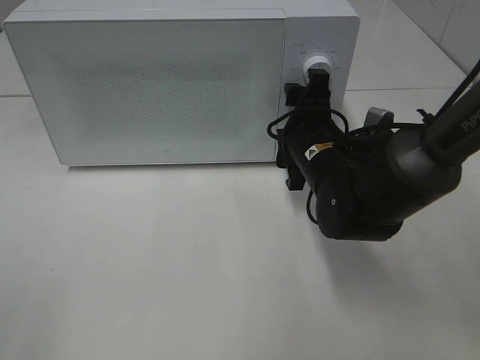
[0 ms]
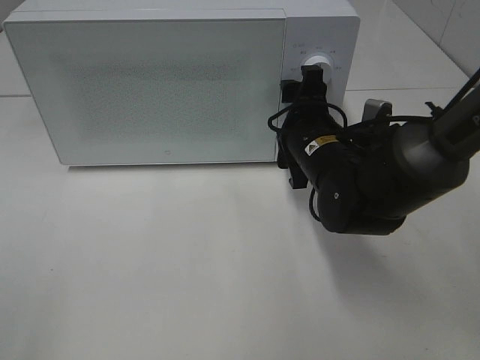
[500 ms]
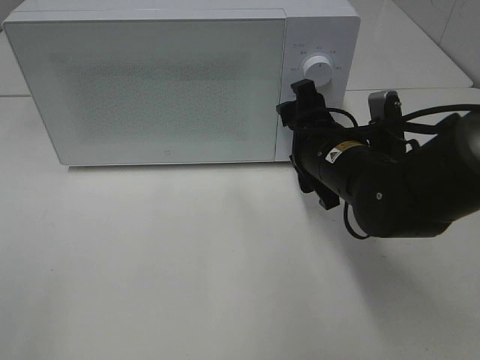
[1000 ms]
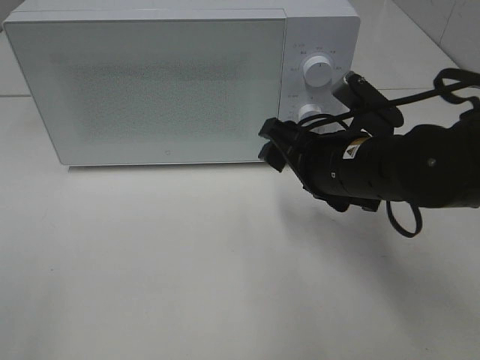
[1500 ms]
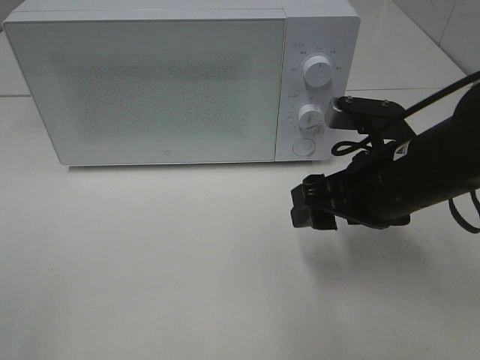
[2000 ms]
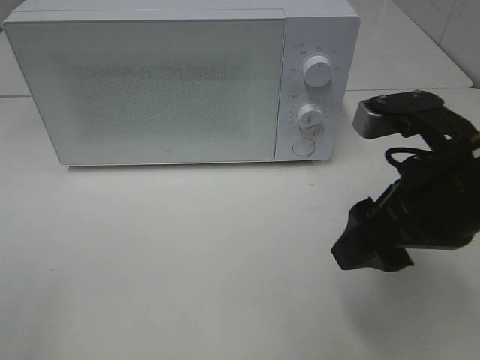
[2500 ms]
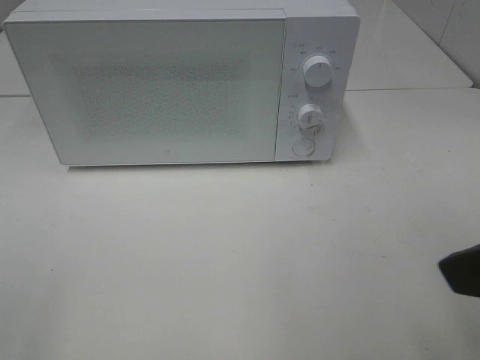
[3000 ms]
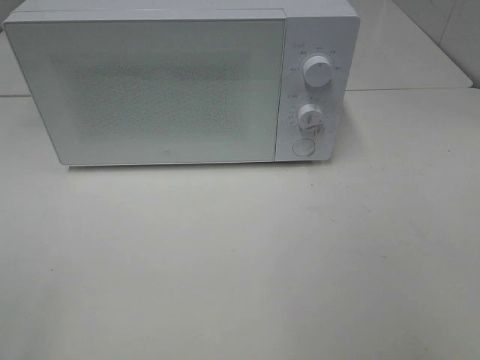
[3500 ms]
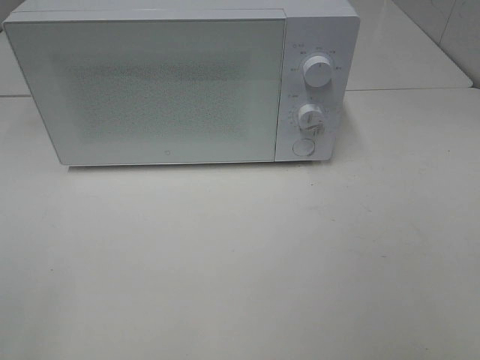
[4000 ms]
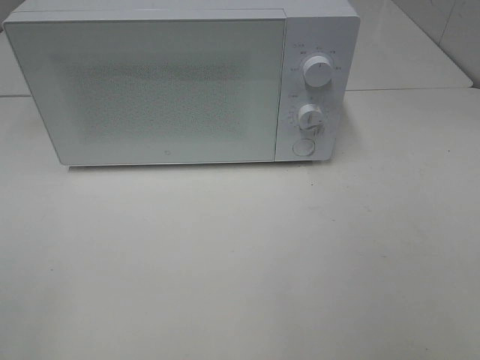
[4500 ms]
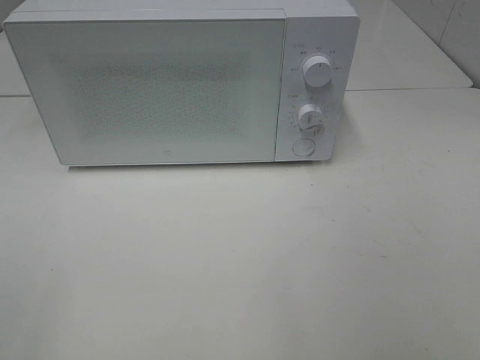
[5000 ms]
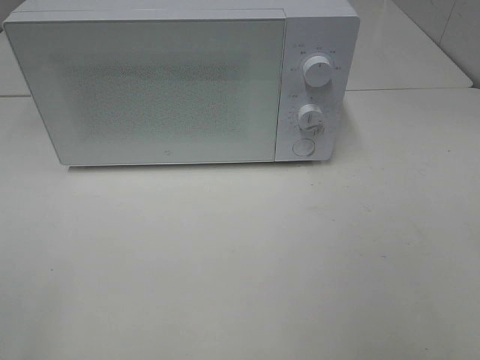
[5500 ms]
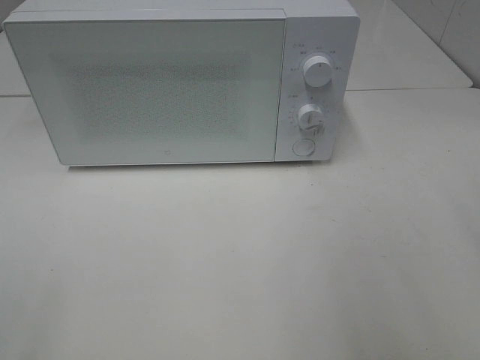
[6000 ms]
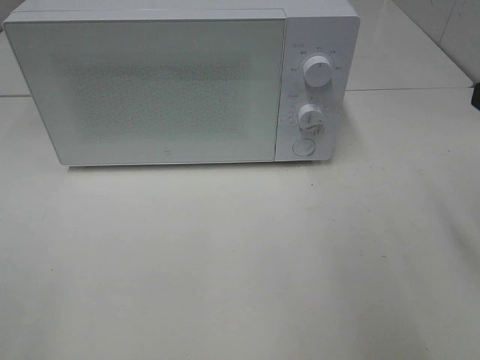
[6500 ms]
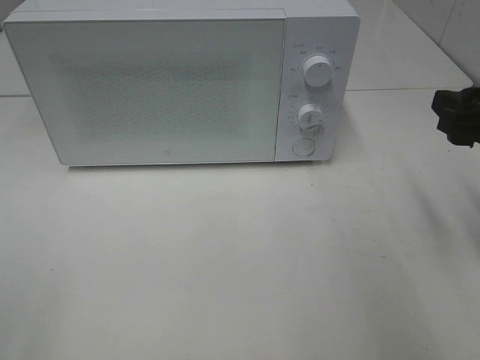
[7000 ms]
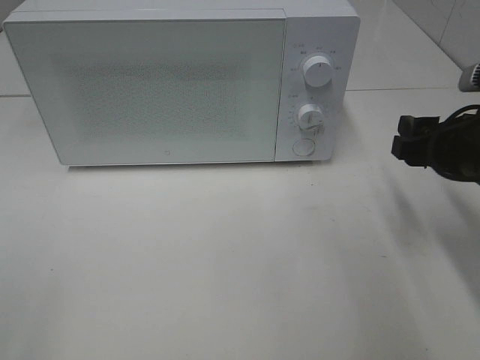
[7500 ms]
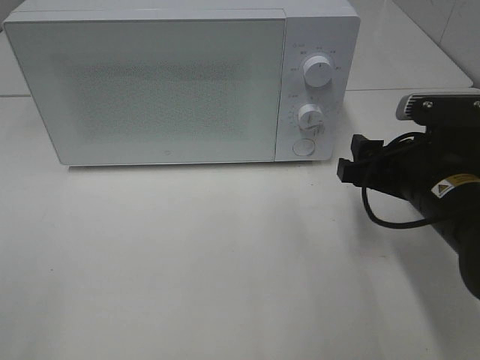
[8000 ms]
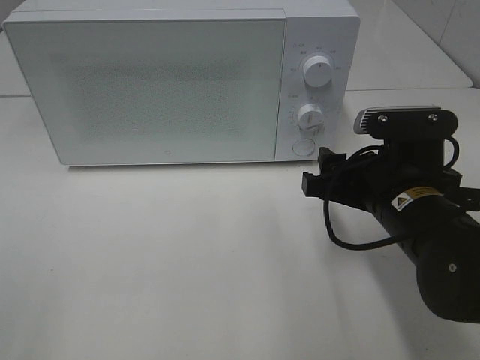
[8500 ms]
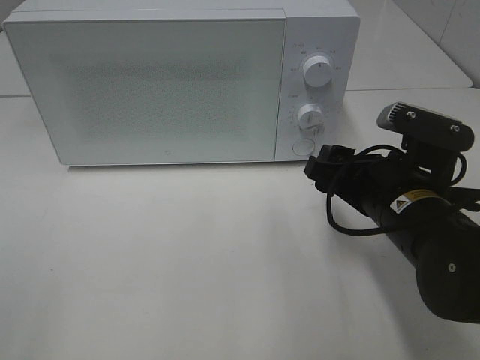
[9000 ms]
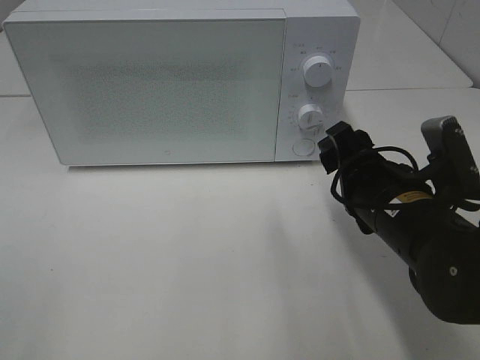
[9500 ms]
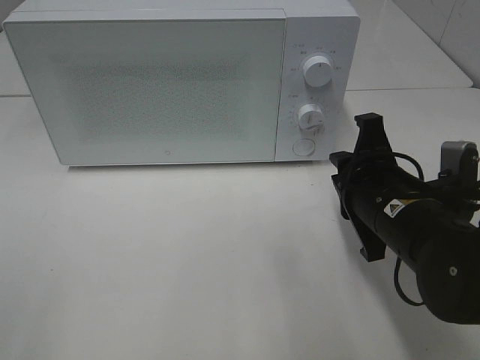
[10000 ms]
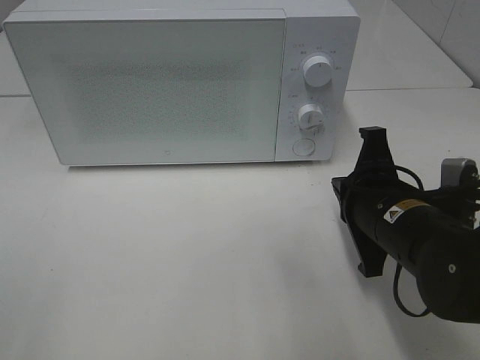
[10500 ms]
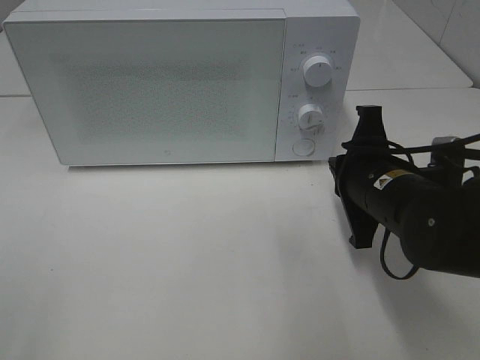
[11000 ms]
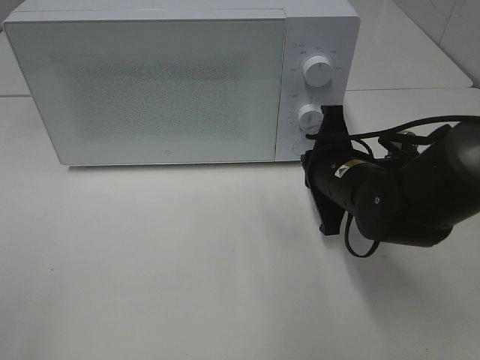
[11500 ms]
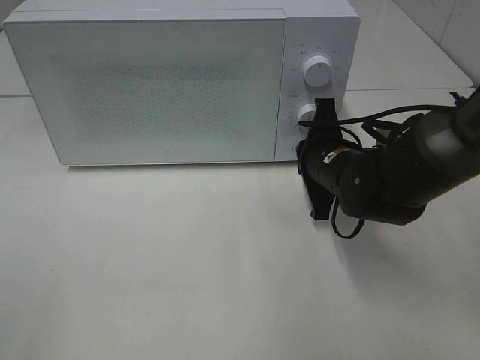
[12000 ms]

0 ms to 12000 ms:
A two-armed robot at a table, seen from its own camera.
Task of the whole recording: Heat Sandwich.
0 ms to 2000 ms: The right gripper is displaced backward, upward and to the right by about 10 cm.
2000 ms to 4000 ms: The right gripper shifts roughly 30 cm backward, to the right and upward.
6000 ms to 8000 ms: The right gripper moves downward, forward and to the left, about 20 cm.
8000 ms to 10000 ms: The right gripper closes up.
10000 ms to 12000 ms: The right gripper is displaced forward by approximately 10 cm.

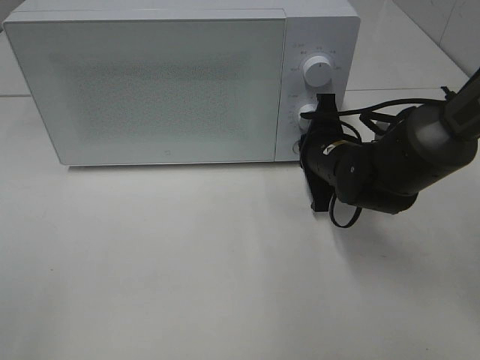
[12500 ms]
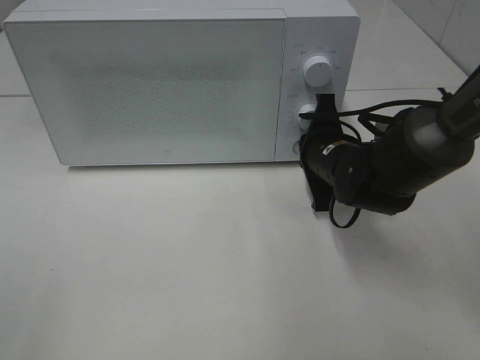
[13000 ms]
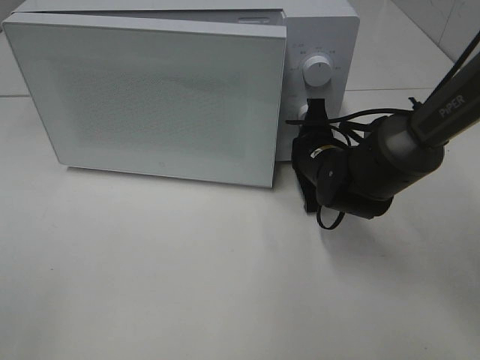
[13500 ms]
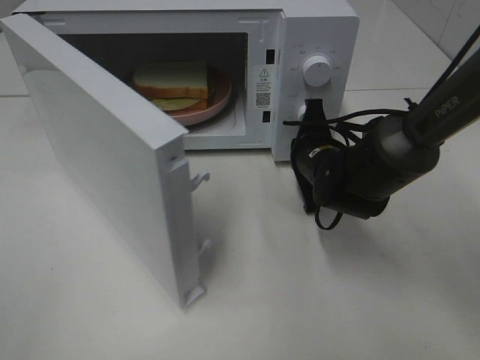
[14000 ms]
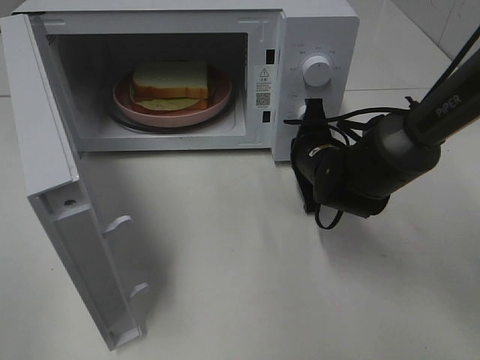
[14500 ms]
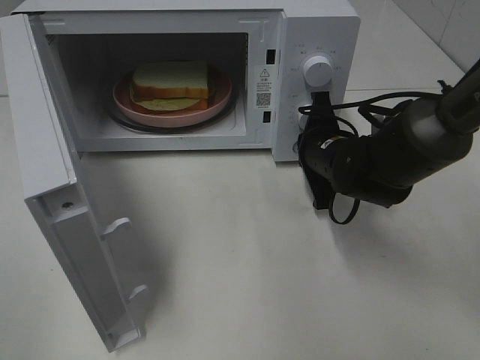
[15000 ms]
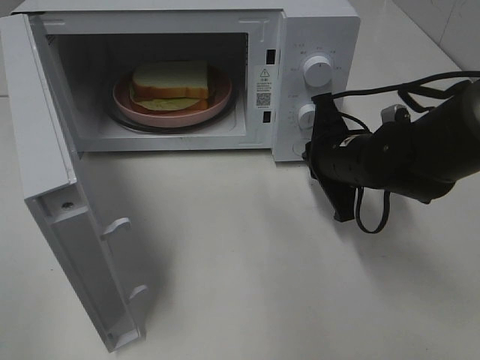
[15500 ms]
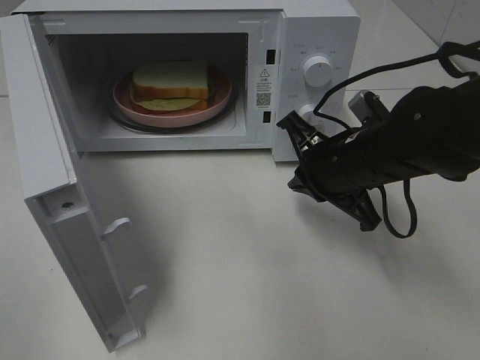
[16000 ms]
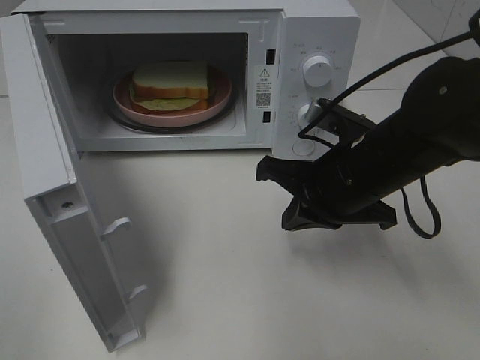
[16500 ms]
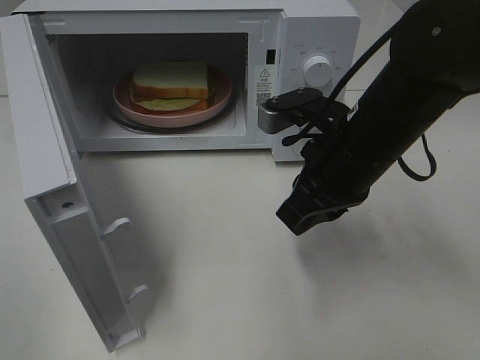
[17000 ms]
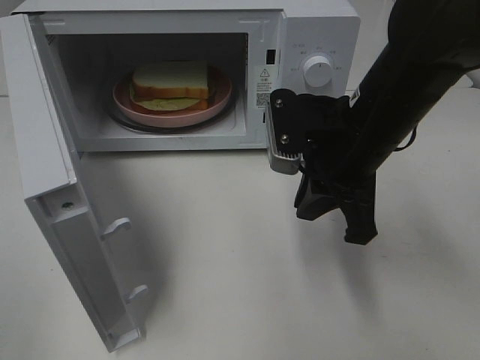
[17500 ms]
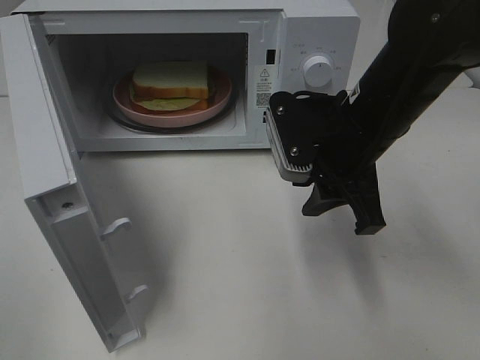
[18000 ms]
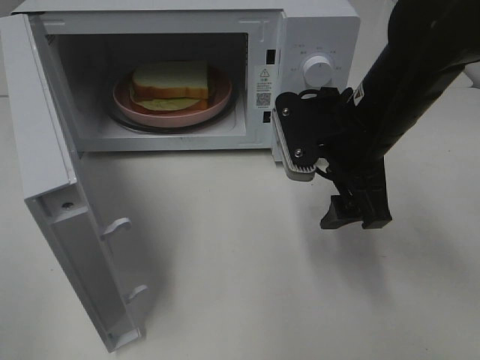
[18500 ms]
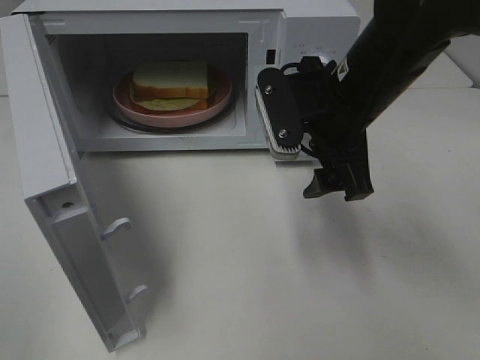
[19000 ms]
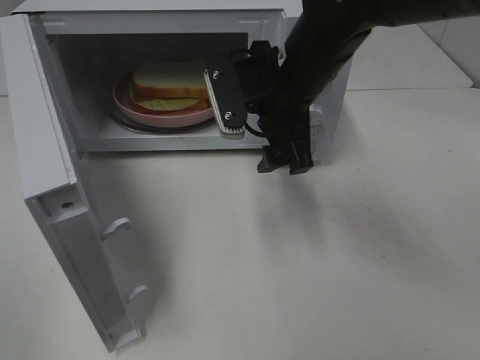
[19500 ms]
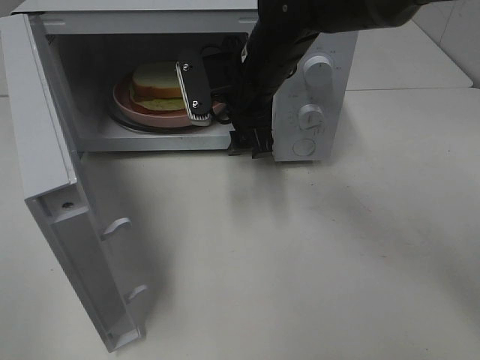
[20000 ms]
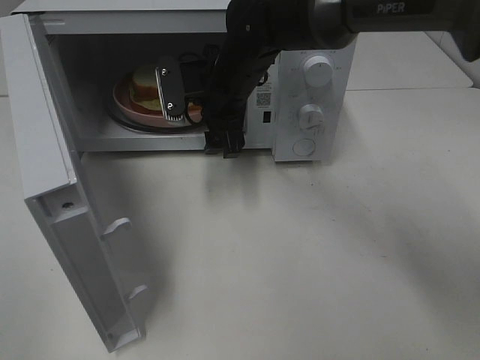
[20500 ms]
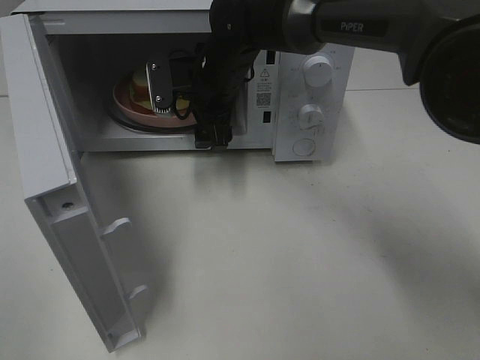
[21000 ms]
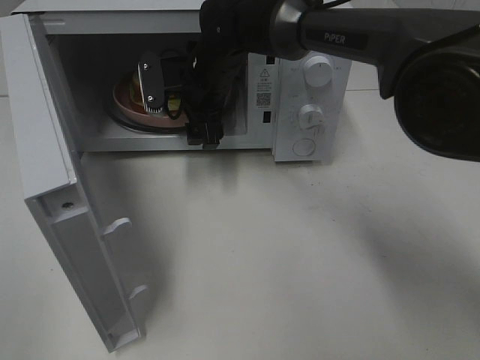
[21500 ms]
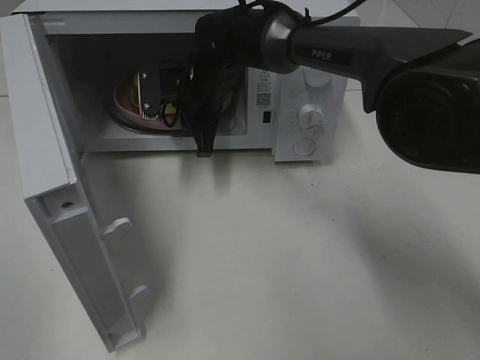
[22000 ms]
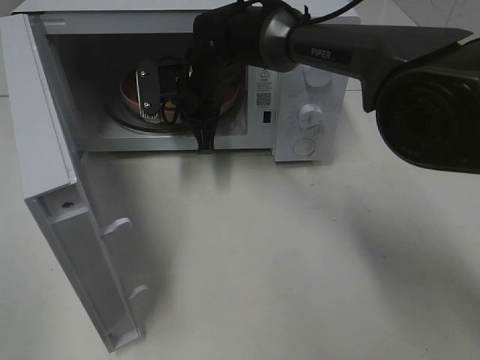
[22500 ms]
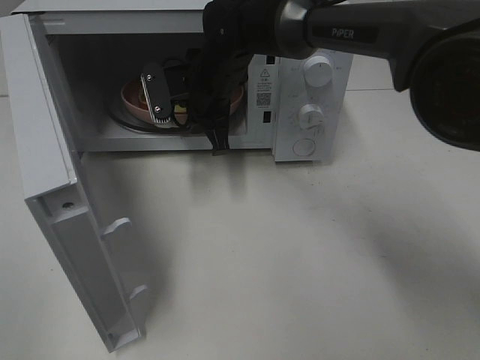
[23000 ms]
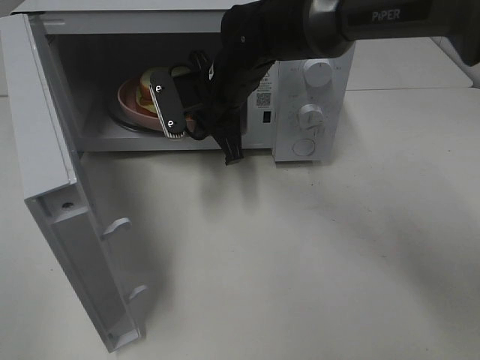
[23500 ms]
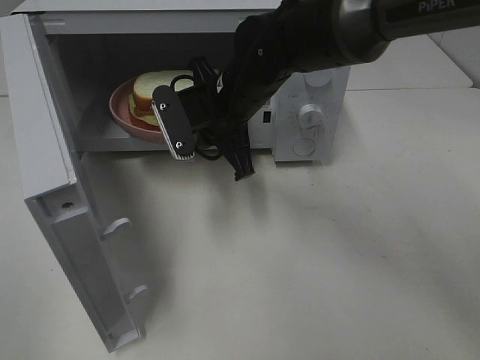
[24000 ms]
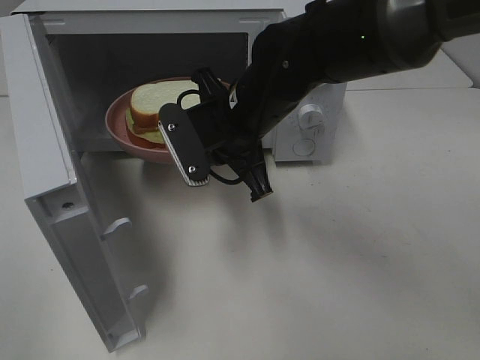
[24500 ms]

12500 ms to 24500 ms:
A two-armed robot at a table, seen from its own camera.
Task of the whole recording: Heat Sandwich.
Step, 12500 ms to 15500 ms: Right hand: press the switch.
Step, 16000 ms to 22000 ms: Right hand: grab the plate with the sandwich.
14500 ms to 16500 ms: The right gripper heads backward and upward, covering some 15 cm.
16500 ms to 18500 ms: The right gripper opens up.
18500 ms to 20500 ms: The right gripper moves to the left and forward, some 20 cm.
20500 ms to 22500 ms: The right gripper ends up roughly 5 cm from where it was, and closes its fingers.
22500 ms to 24500 ms: The right gripper goes approximately 15 cm backward.

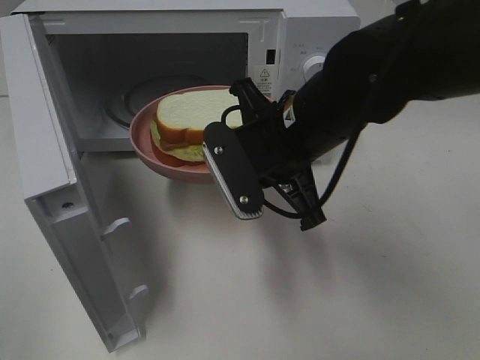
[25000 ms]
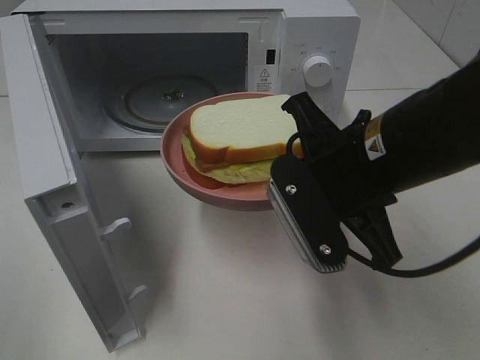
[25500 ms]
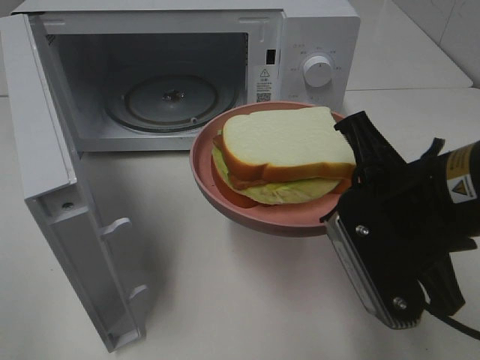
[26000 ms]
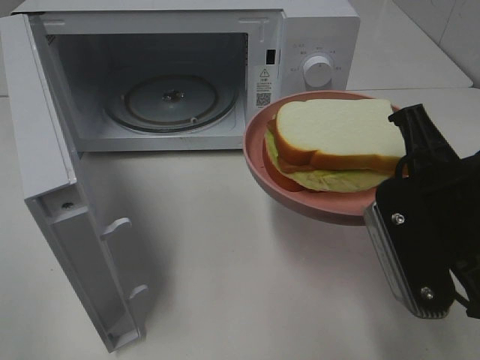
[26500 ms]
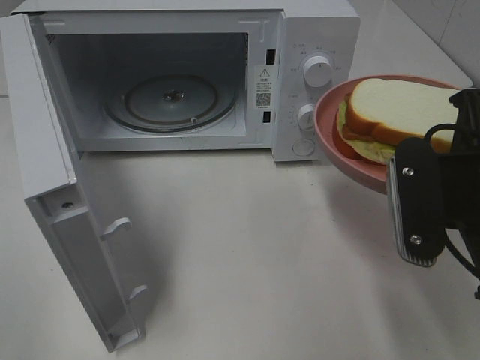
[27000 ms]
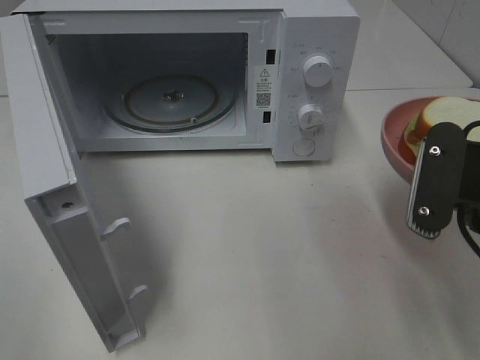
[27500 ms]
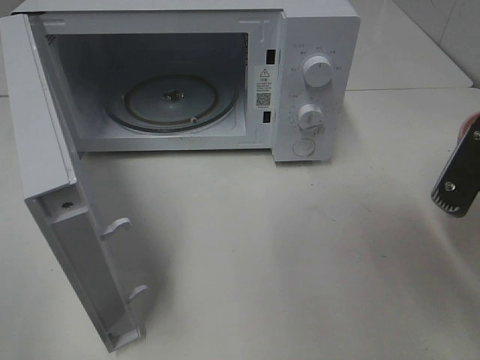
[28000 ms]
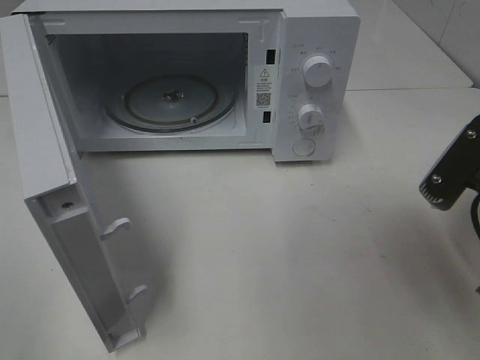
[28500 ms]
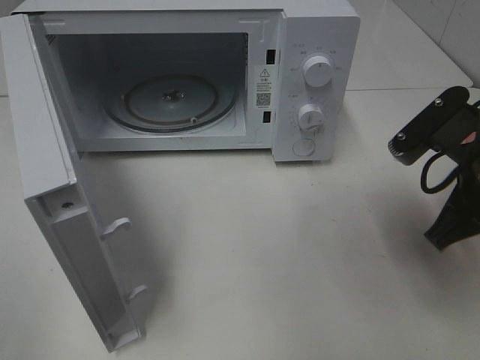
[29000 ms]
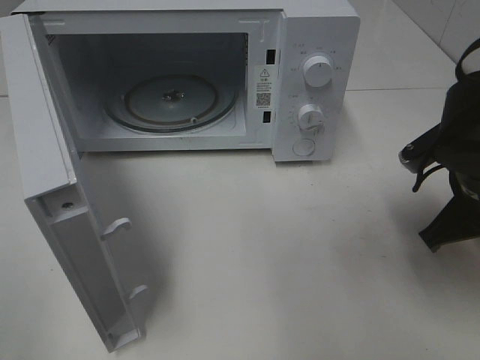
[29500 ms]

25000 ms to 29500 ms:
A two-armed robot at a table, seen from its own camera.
Task of the whole recording: Heat Sandwich.
25000 ms to 27000 ms: The right gripper shifts about 15 cm to the right and backward.
27000 ms to 29500 ms: The right gripper moves forward and downward, approximately 10 cm.
